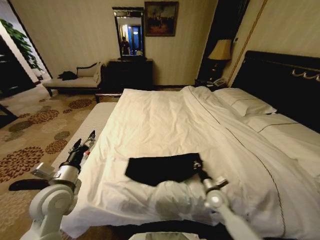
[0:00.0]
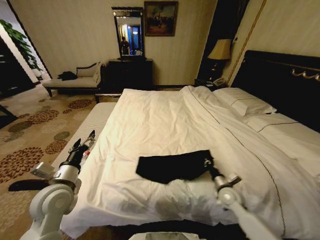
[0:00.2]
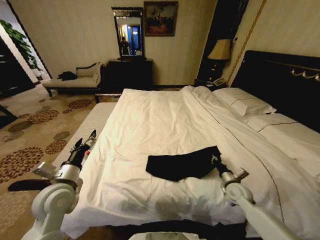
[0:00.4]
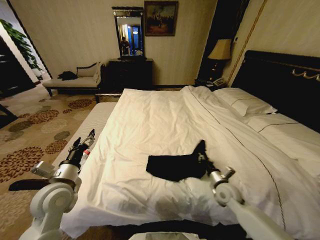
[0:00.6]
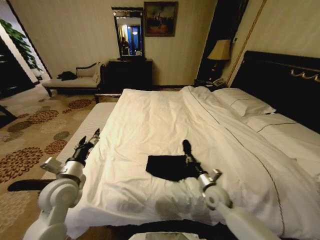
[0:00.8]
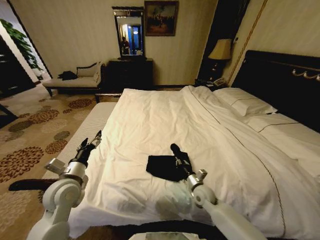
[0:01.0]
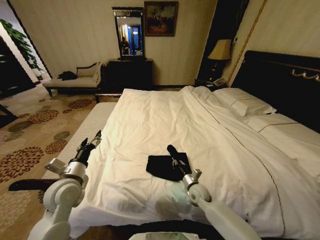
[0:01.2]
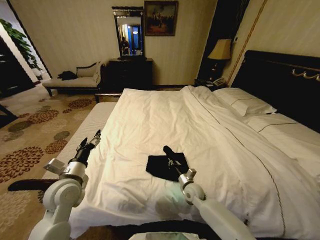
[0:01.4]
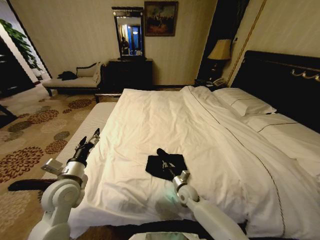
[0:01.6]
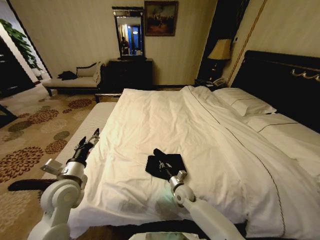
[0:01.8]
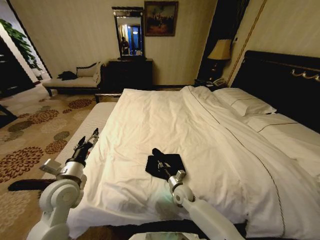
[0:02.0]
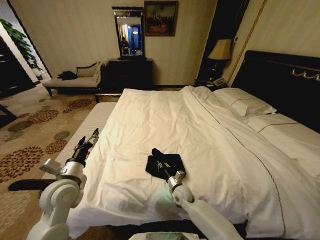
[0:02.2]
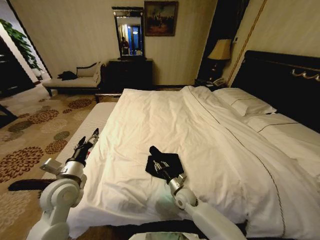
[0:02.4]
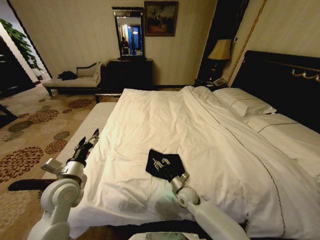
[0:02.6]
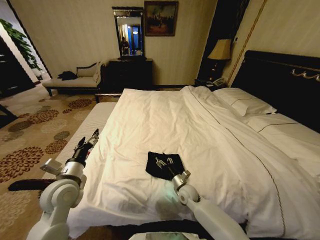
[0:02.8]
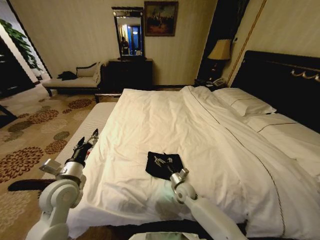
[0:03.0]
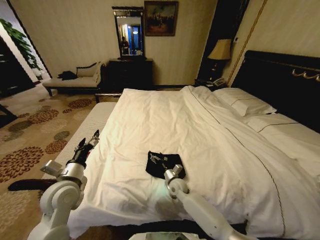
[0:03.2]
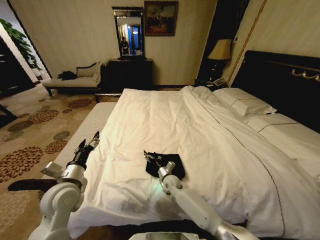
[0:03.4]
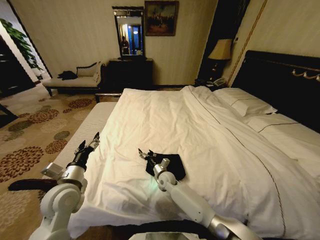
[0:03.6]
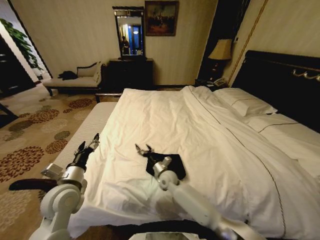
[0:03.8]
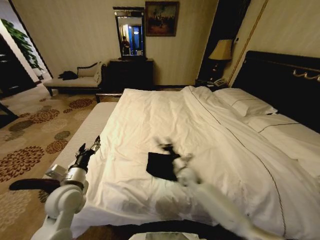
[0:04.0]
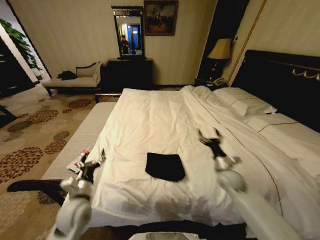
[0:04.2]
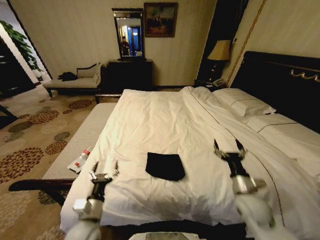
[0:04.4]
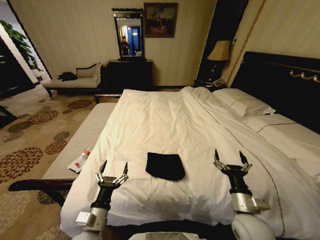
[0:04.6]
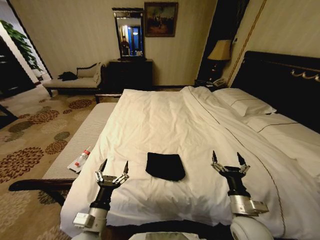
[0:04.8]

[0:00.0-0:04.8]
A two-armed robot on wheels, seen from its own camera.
Task of the whole recording: Fold the clothes on the bed.
0.0 to 1.6 s: The right gripper goes some 15 cm to the left and downward.
1.6 to 3.2 s: The right gripper changes place by approximately 5 cm, and opens.
3.2 to 4.8 s: The right gripper swings left and right, some 30 cm each way, with 2 reversals, while the left gripper is displaced backward, to the right and downward by about 15 cm.

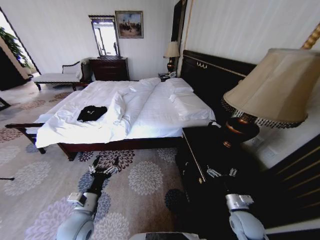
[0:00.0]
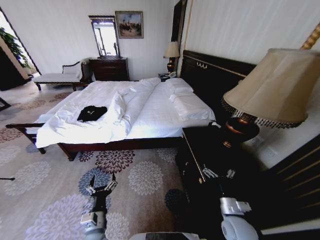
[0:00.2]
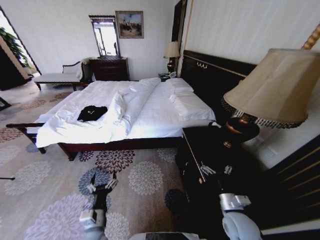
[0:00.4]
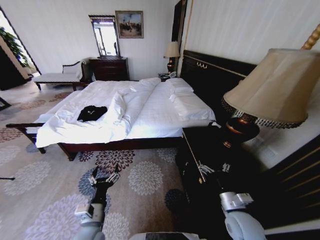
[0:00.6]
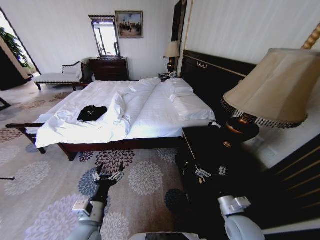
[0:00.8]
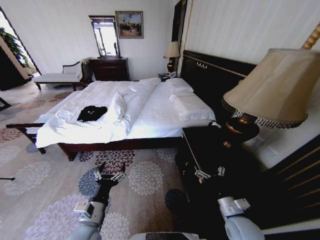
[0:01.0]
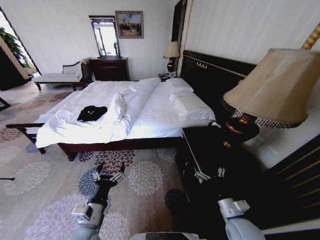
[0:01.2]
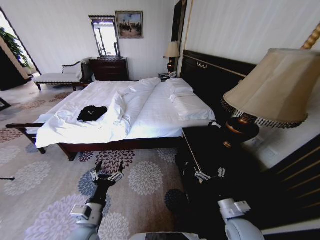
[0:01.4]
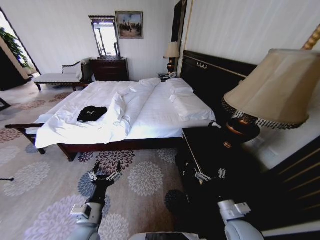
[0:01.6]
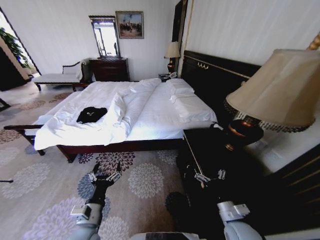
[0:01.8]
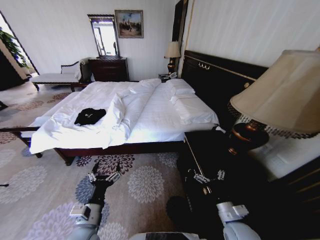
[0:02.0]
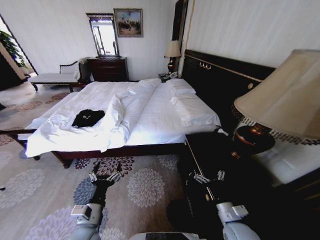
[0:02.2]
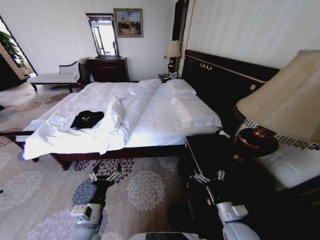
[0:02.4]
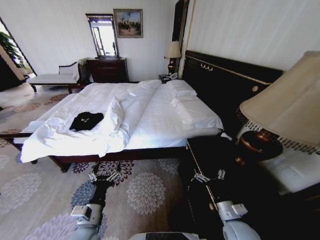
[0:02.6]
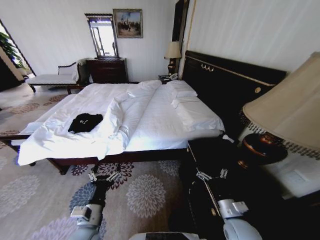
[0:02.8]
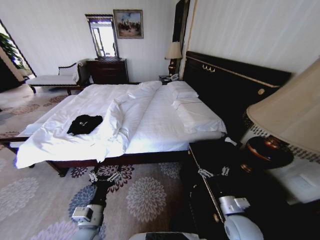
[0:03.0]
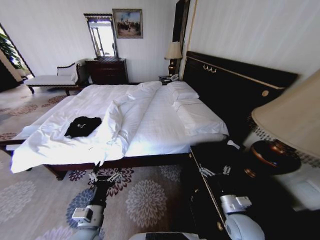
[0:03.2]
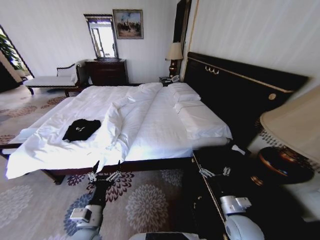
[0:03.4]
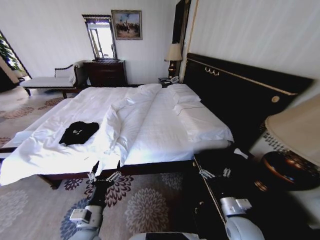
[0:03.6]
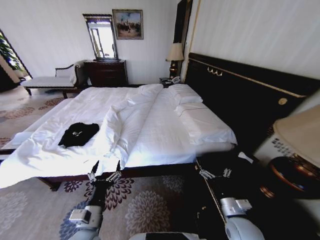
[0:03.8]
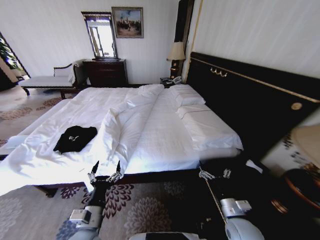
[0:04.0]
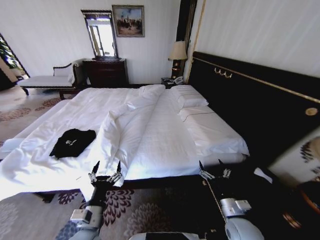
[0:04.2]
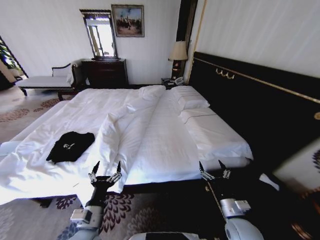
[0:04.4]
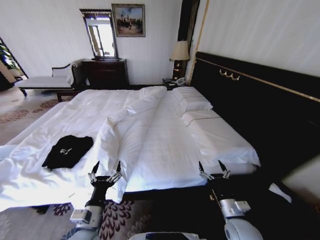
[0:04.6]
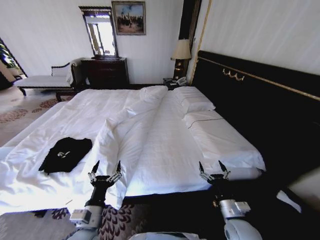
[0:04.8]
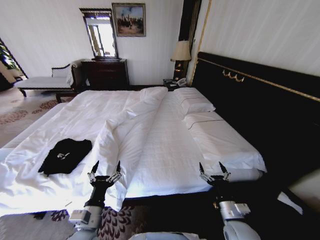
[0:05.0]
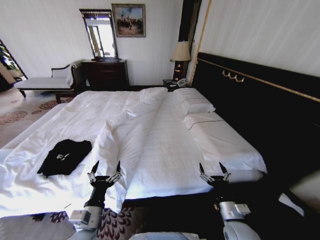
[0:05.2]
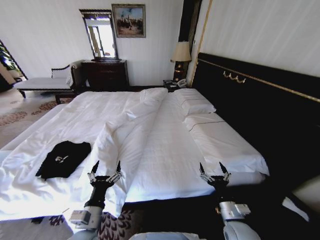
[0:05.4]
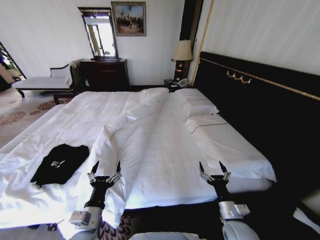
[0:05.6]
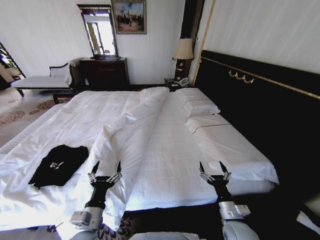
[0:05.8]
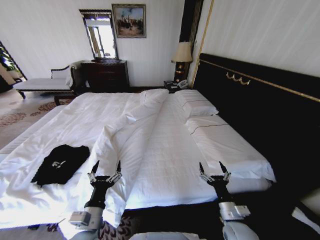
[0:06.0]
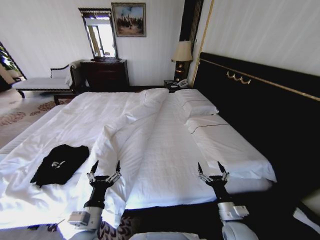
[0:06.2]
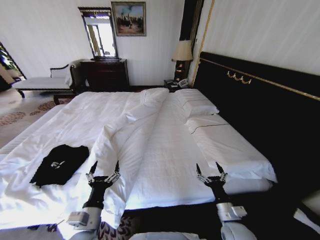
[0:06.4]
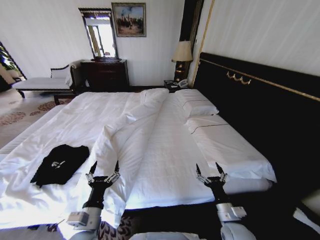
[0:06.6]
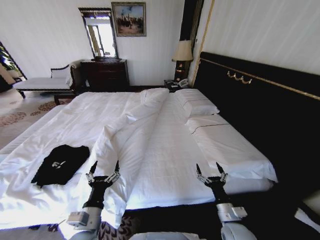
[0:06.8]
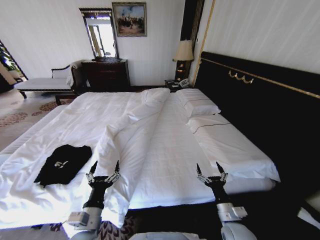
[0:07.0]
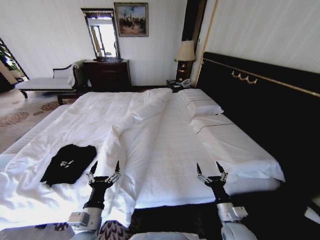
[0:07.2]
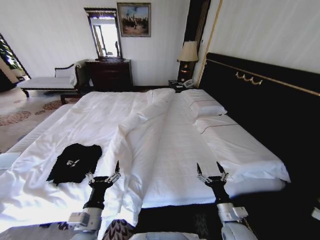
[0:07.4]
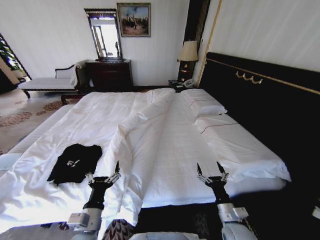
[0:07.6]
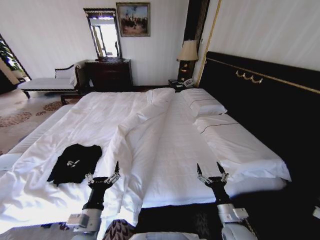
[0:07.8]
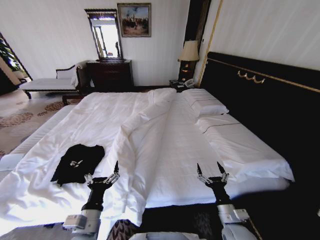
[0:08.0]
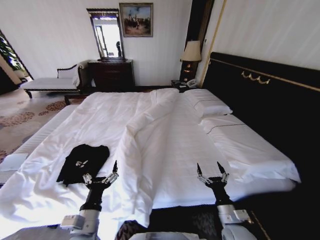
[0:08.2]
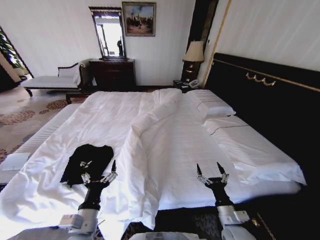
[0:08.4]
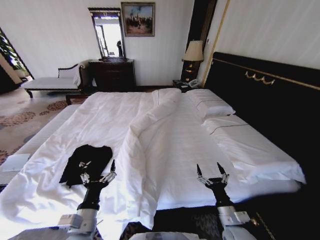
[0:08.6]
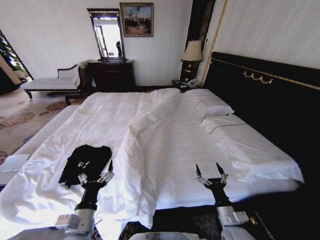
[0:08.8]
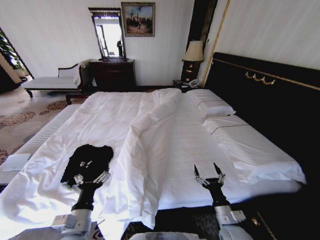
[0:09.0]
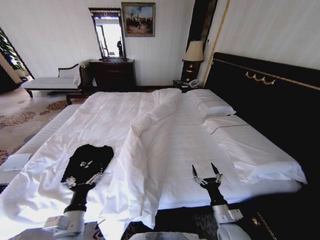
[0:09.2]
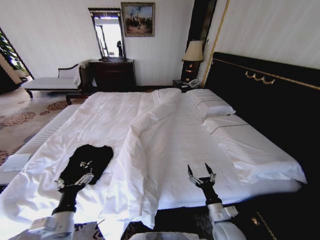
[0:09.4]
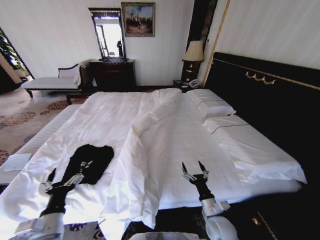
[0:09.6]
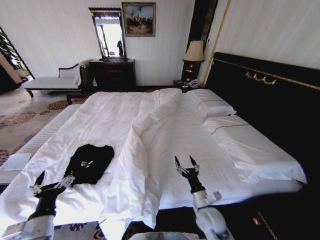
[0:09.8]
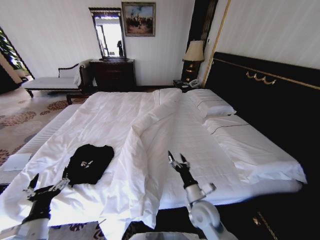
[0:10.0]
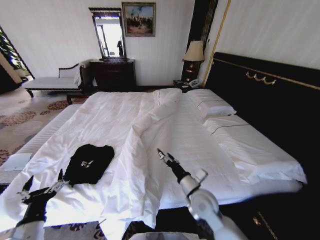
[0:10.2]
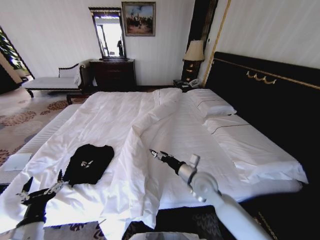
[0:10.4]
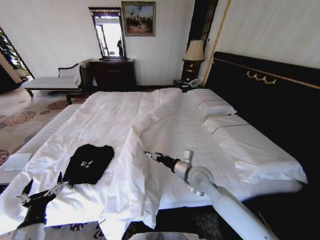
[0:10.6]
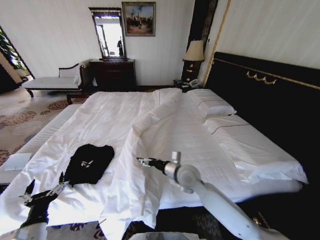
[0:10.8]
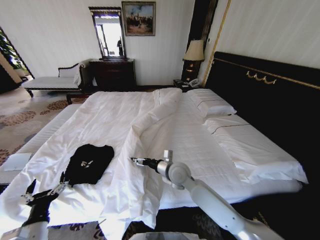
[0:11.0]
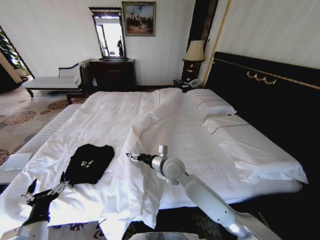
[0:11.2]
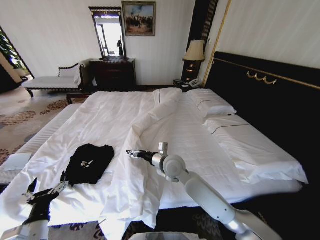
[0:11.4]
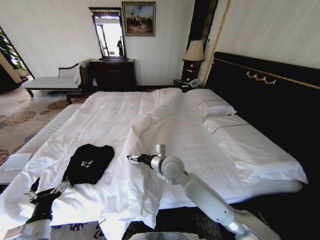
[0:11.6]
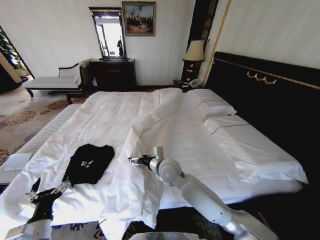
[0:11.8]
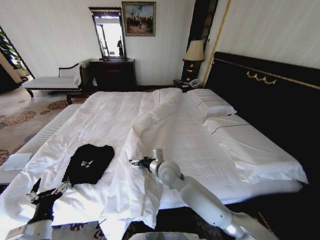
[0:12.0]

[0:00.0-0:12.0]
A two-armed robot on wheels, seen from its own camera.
Task of the whole recording: Fold the clothes on the bed.
9.0 to 10.4 s: The right gripper is displaced forward, upward and to the left by some 20 cm, while the left gripper shifts approximately 15 cm to the left.
10.4 to 12.0 s: The right gripper goes approximately 15 cm to the left.

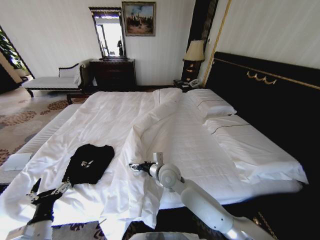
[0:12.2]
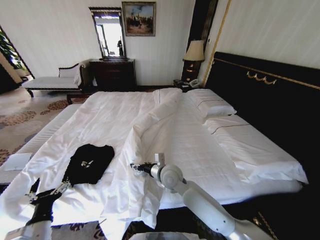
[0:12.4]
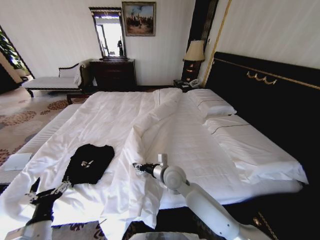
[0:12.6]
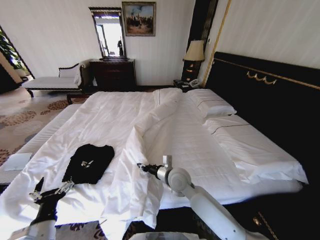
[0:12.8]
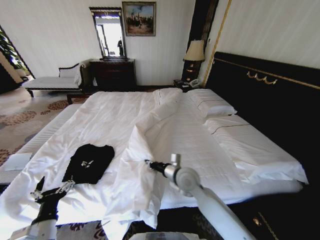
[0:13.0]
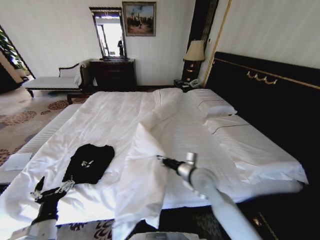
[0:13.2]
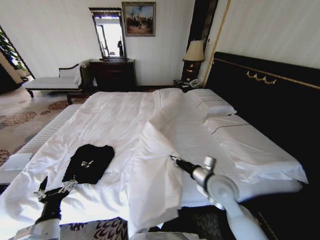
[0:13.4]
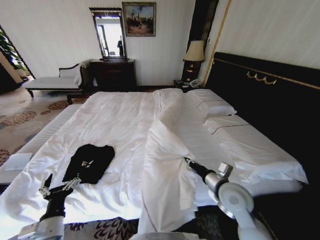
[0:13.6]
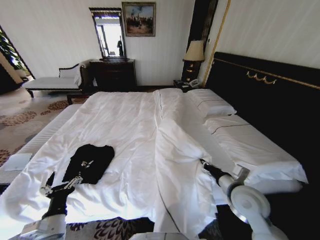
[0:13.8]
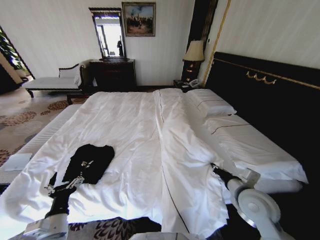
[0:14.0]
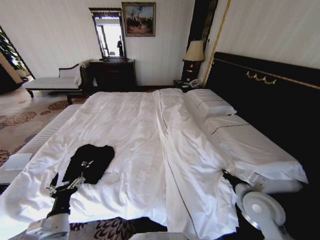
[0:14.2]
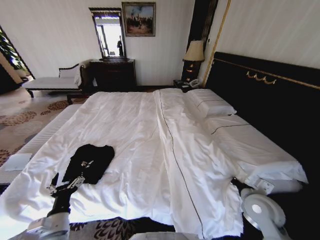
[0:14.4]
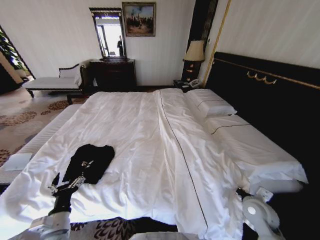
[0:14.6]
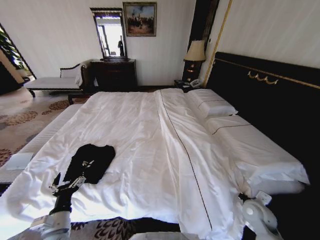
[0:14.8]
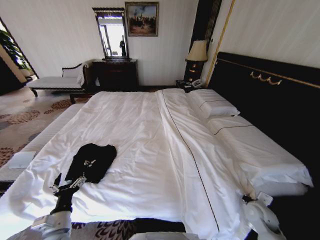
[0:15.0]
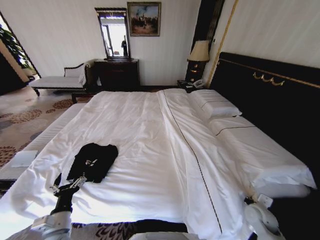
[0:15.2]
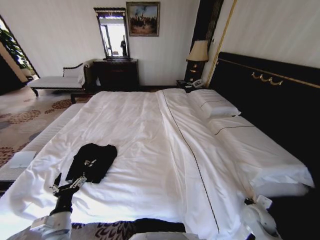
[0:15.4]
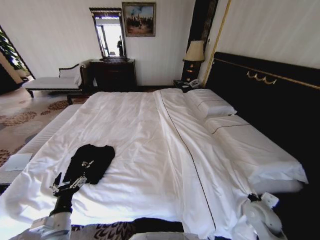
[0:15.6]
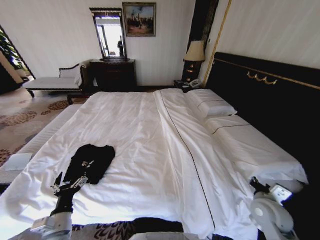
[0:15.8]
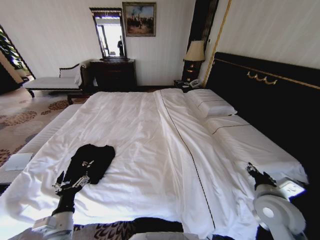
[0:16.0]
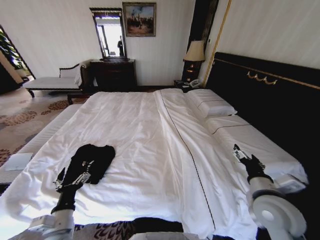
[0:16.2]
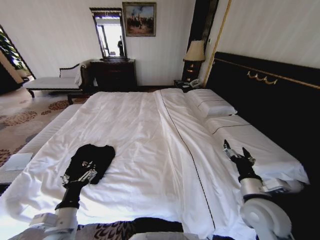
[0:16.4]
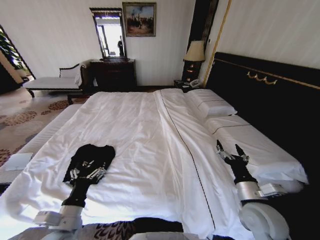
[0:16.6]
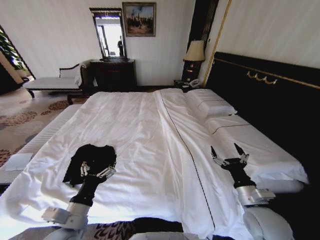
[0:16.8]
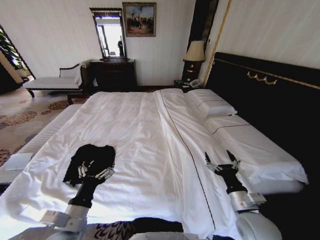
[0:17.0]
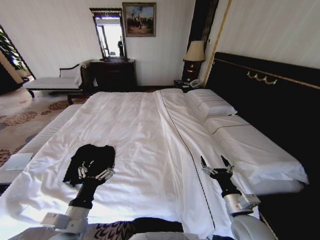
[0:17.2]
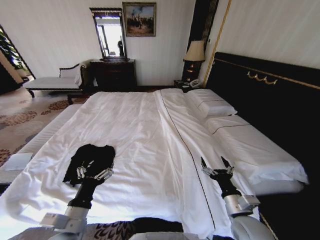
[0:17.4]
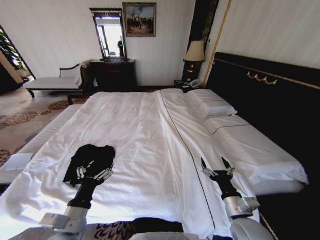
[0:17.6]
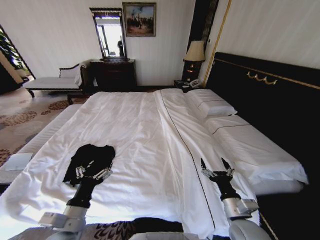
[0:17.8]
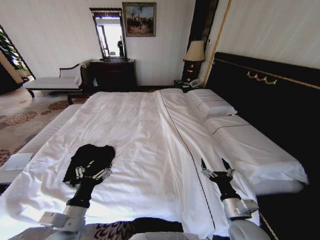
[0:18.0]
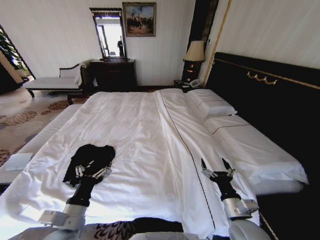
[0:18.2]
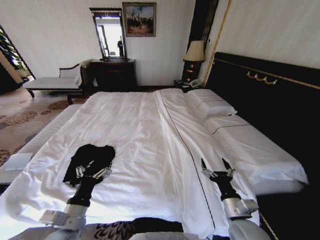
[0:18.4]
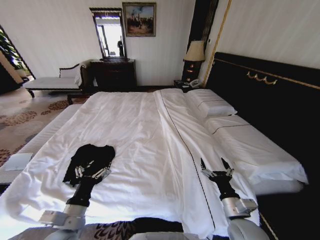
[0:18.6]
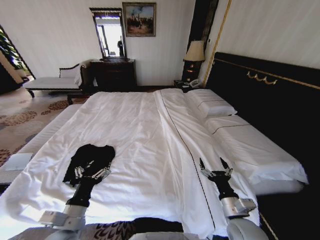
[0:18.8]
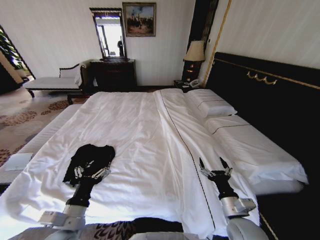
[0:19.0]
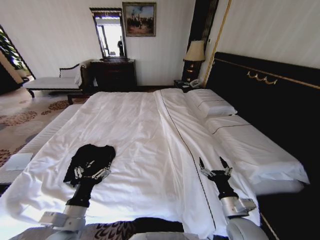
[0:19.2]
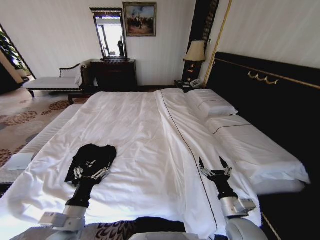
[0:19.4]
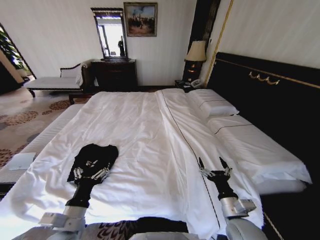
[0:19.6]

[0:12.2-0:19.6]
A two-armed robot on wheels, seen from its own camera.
Task of the whole recording: Fold the clothes on the bed.
12.2 to 13.6 s: The right gripper goes approximately 20 cm to the right and backward, and closes.
13.6 to 15.2 s: The right gripper shifts roughly 25 cm to the right and downward.
15.2 to 16.6 s: The left gripper is displaced upward and to the right by about 10 cm. The right gripper shifts roughly 20 cm upward and to the left, and opens up.
16.6 to 18.2 s: The right gripper changes place by roughly 5 cm.
18.2 to 19.6 s: Both grippers stay about where they are.
